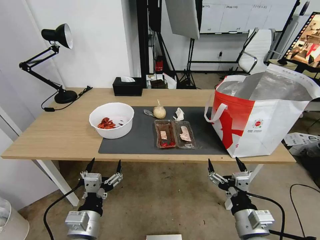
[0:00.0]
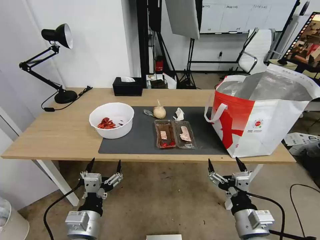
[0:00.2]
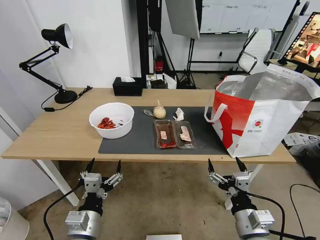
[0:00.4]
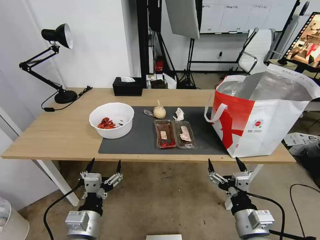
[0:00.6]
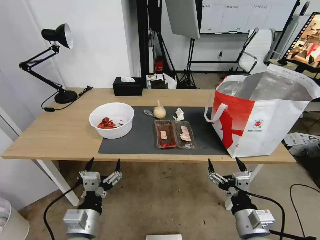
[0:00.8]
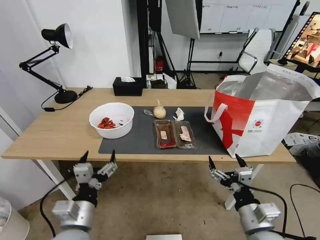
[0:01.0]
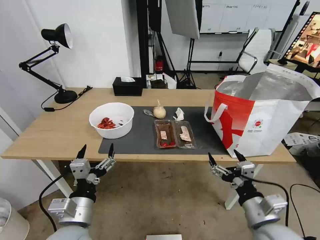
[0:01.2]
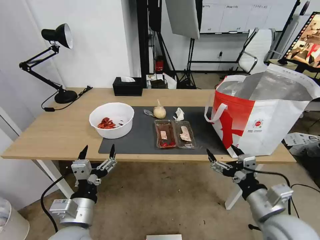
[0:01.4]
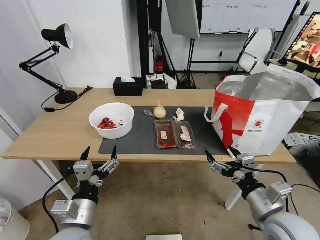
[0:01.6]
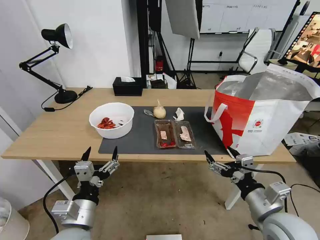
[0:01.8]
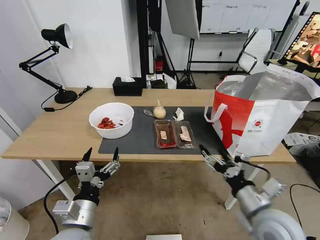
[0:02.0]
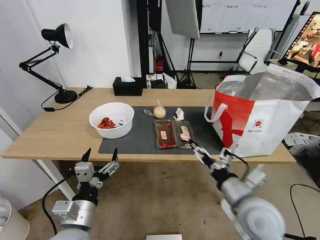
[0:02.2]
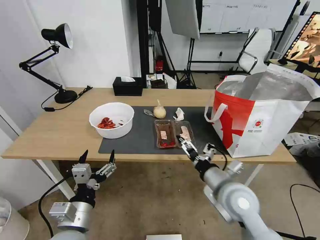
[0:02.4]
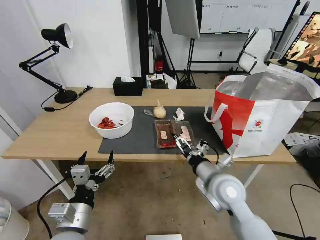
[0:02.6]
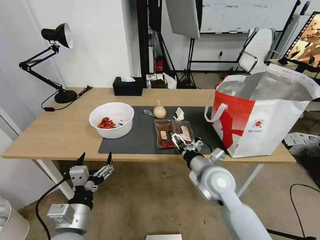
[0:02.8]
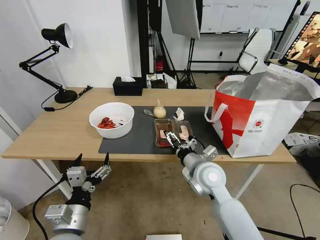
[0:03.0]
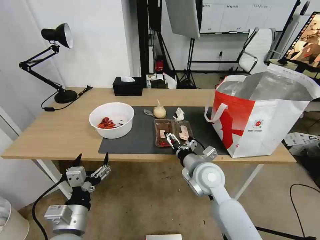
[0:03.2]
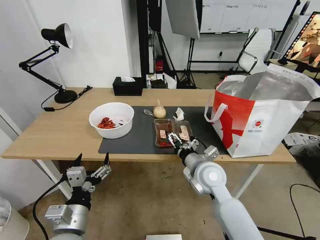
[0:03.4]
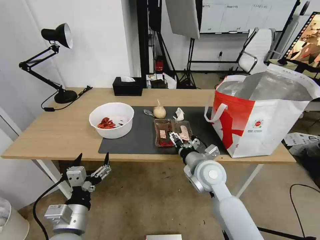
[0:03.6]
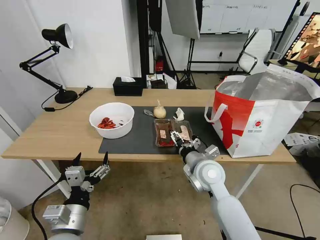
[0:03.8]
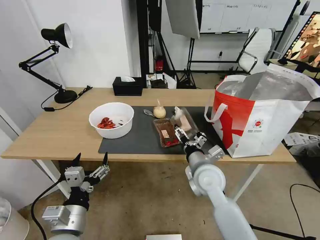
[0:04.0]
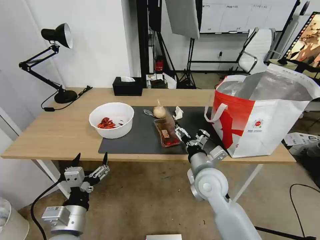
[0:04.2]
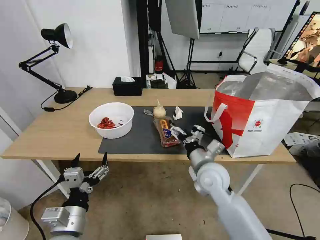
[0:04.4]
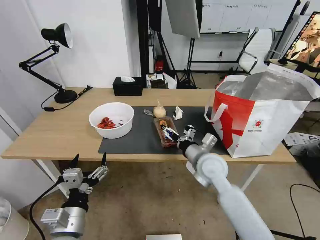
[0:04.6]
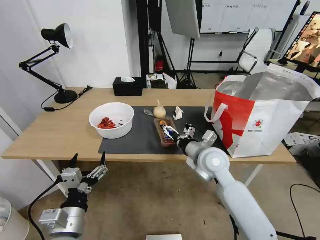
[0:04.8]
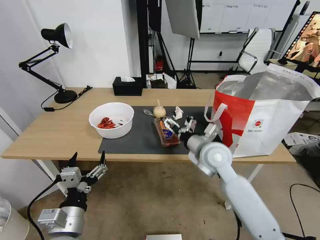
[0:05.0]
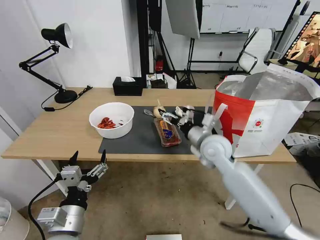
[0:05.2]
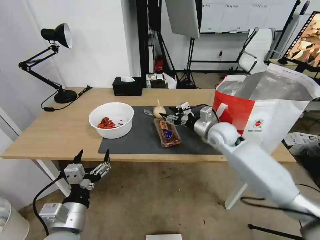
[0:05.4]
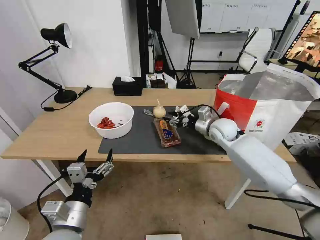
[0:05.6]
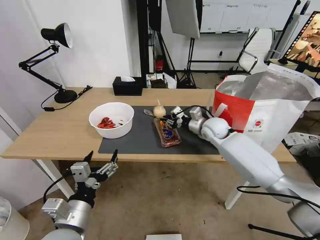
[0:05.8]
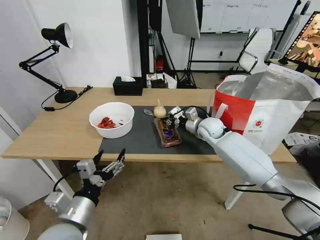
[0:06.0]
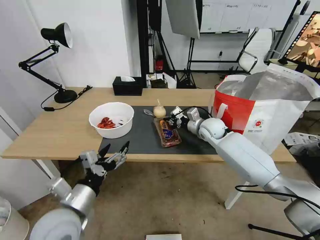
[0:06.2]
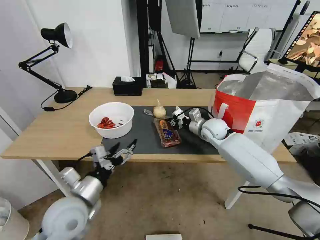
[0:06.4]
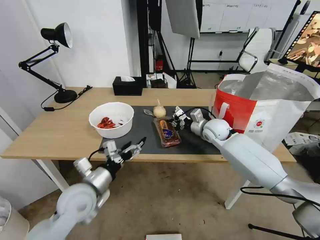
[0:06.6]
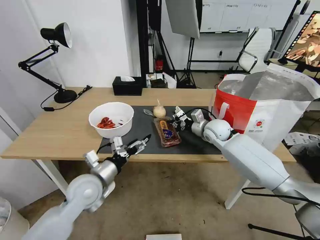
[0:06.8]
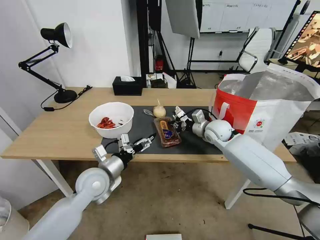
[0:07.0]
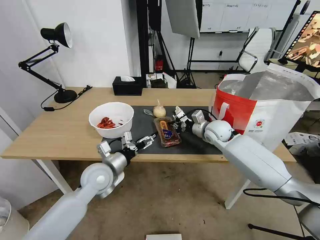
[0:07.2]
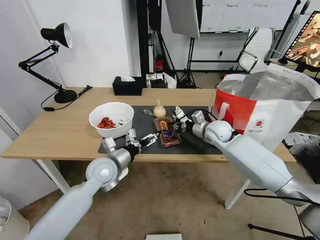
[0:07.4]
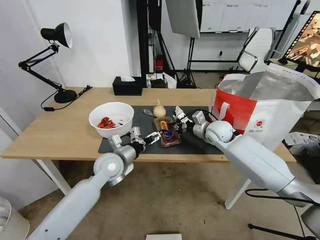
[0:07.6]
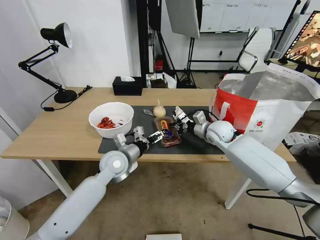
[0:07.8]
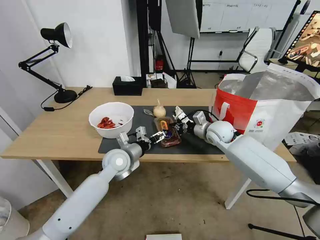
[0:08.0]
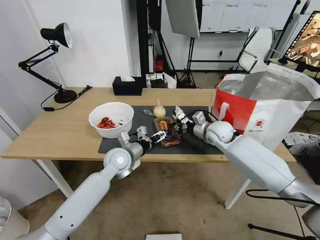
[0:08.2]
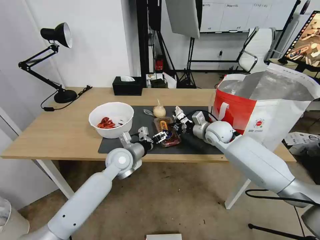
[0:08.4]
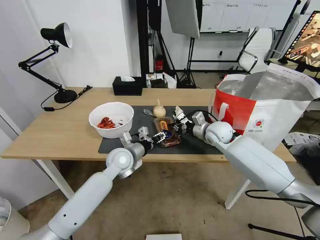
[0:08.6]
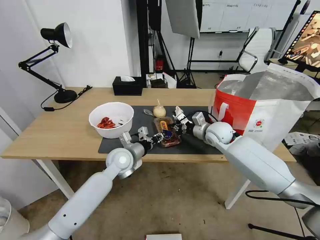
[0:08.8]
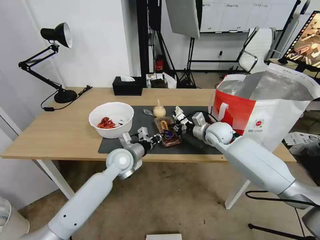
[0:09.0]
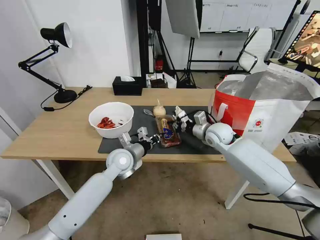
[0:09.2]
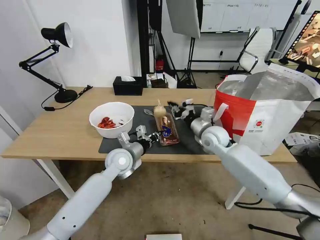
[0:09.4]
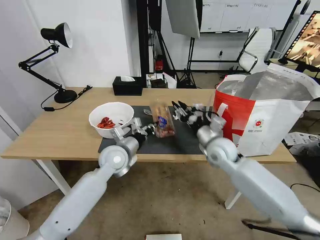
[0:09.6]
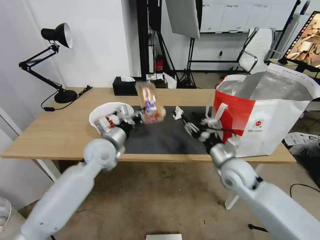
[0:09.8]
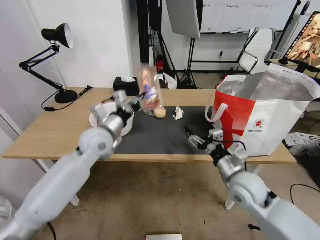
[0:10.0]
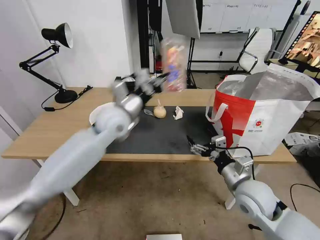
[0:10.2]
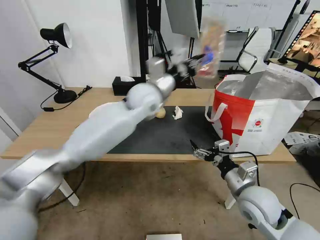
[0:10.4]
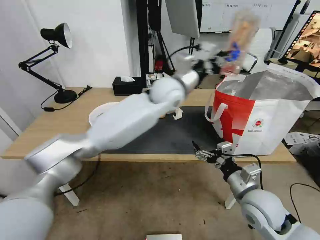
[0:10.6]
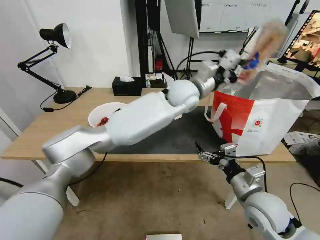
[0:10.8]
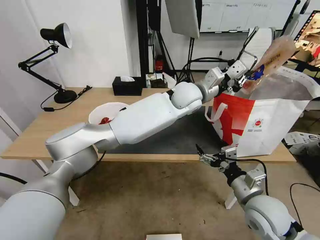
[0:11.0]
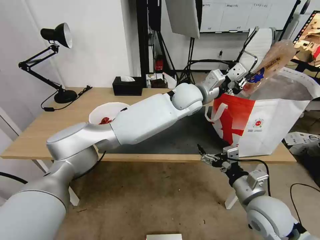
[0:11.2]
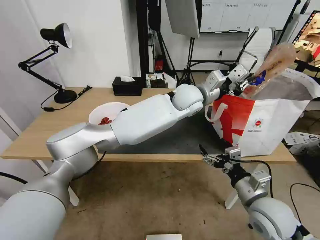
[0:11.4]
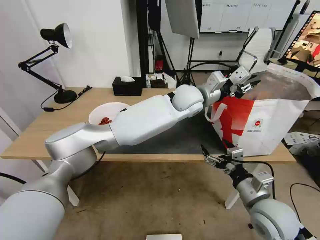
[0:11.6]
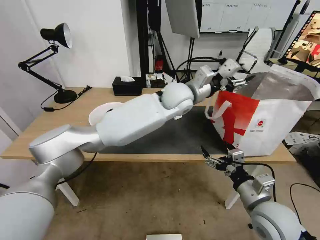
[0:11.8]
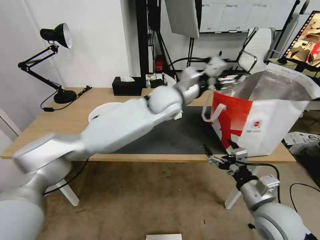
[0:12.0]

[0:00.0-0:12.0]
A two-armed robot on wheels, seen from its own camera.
Task of the whole recording: Pick up the trash from the table and place it into the takeout bag.
0:01.6 to 0:03.0: The right gripper shifts some 20 cm forward and to the left.
0:04.4 to 0:06.0: The right gripper is displaced forward by about 20 cm, and closes its fingers.
0:06.0 to 0:07.6: The left gripper shifts some 20 cm forward.
0:07.6 to 0:09.0: The left gripper closes up.
0:09.0 to 0:10.4: The right gripper travels backward by roughly 25 cm, and opens. The left gripper is displaced upward and to the right by about 25 cm.
0:10.4 to 0:12.0: The left gripper shifts approximately 5 cm to the right, and opens; the right gripper ends up roughly 5 cm from where it was.

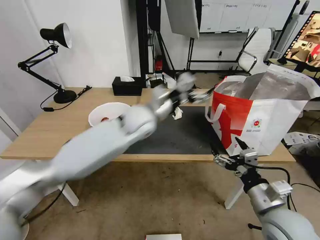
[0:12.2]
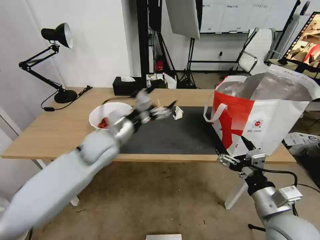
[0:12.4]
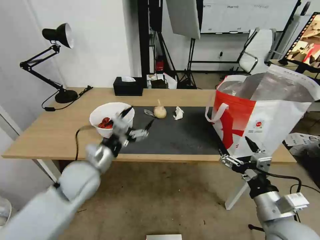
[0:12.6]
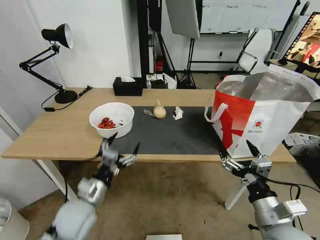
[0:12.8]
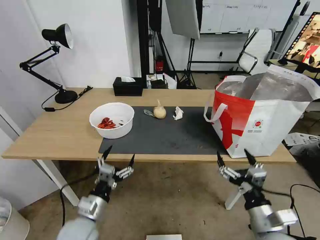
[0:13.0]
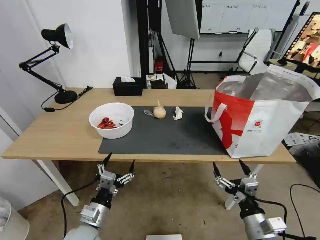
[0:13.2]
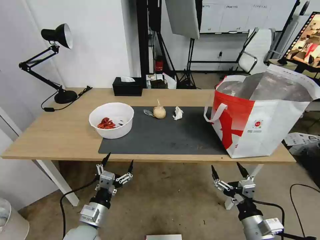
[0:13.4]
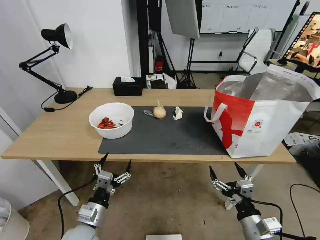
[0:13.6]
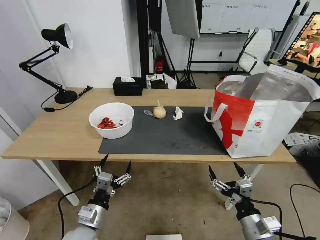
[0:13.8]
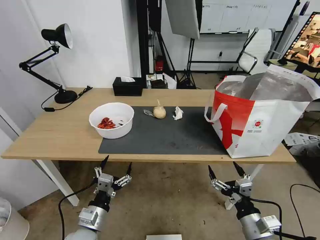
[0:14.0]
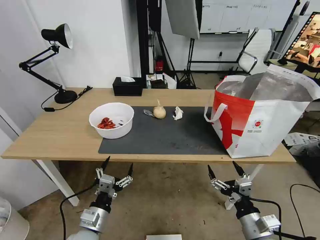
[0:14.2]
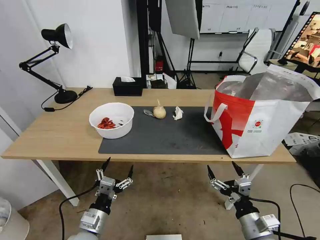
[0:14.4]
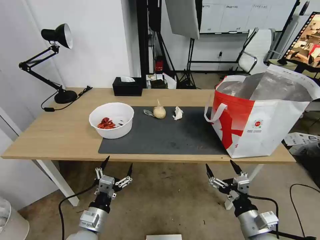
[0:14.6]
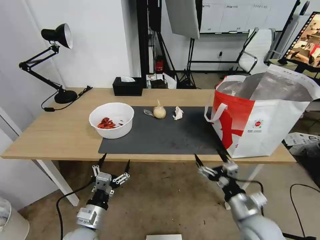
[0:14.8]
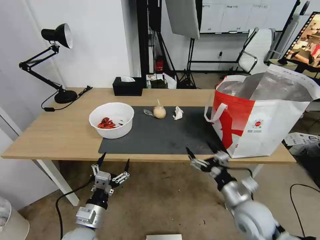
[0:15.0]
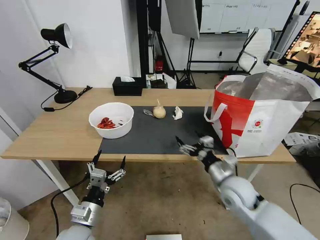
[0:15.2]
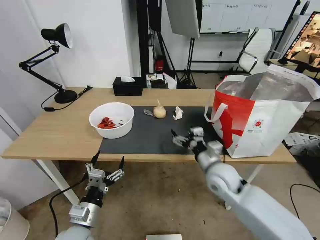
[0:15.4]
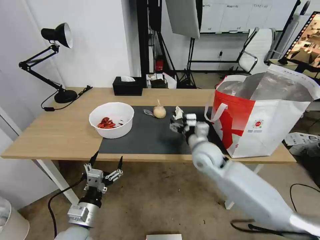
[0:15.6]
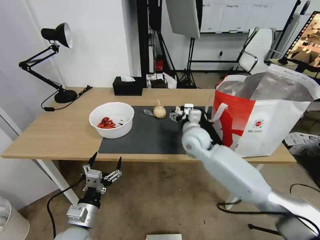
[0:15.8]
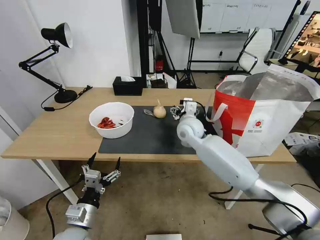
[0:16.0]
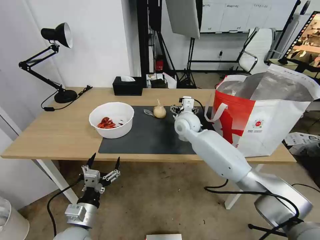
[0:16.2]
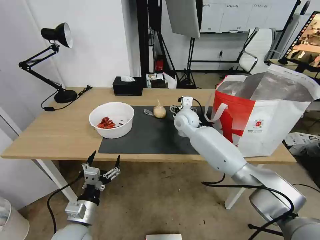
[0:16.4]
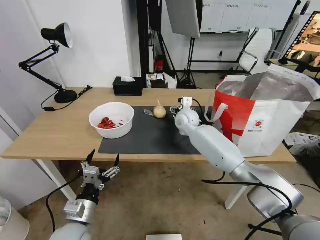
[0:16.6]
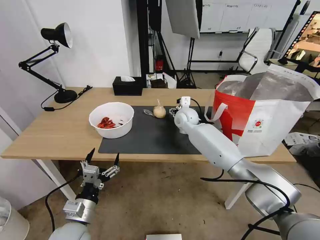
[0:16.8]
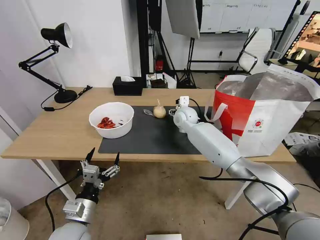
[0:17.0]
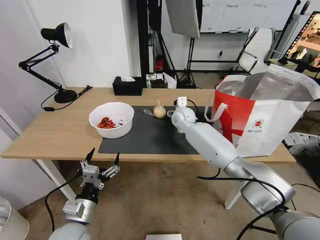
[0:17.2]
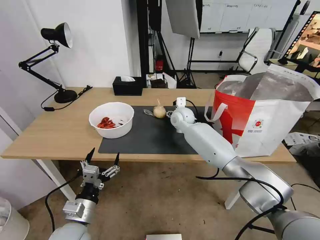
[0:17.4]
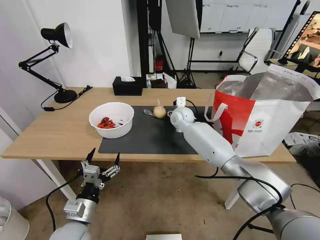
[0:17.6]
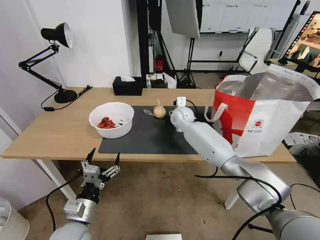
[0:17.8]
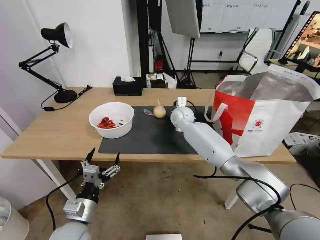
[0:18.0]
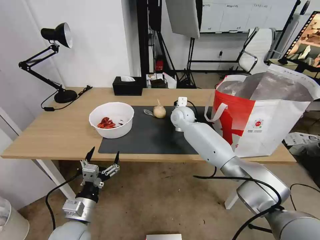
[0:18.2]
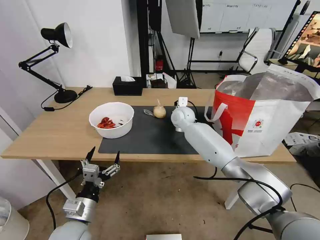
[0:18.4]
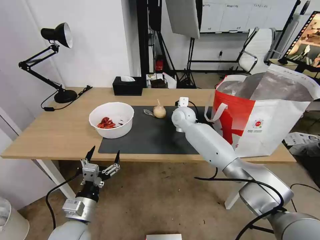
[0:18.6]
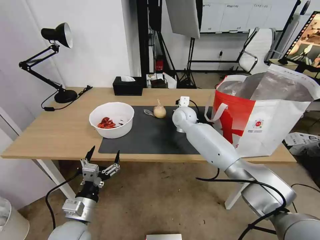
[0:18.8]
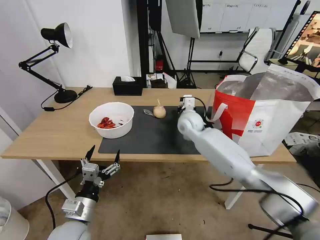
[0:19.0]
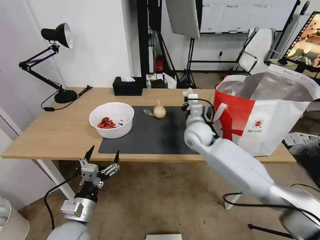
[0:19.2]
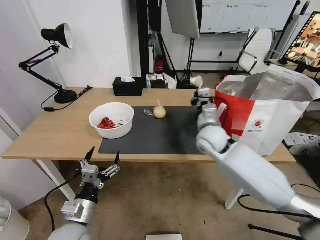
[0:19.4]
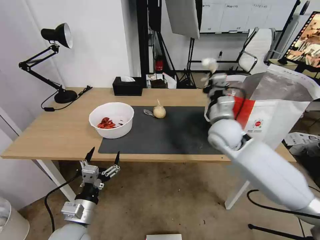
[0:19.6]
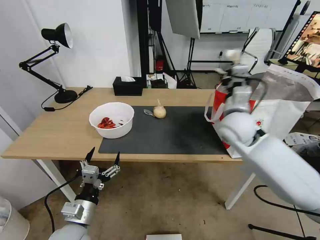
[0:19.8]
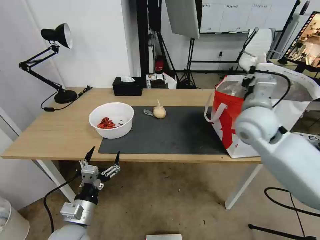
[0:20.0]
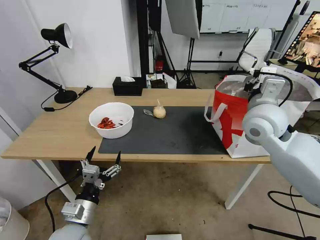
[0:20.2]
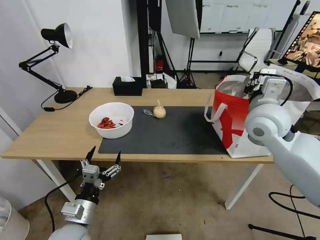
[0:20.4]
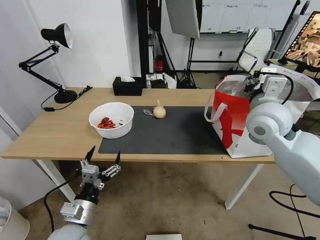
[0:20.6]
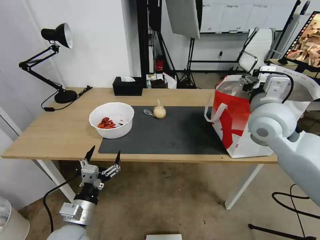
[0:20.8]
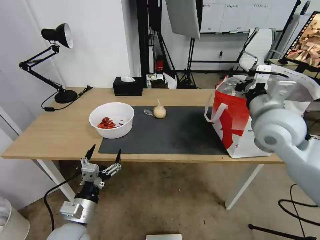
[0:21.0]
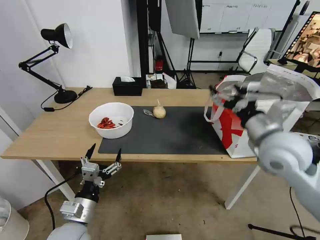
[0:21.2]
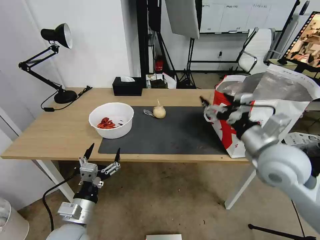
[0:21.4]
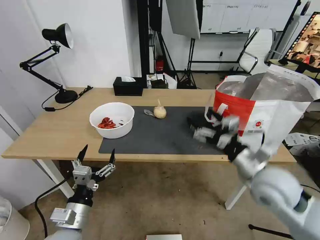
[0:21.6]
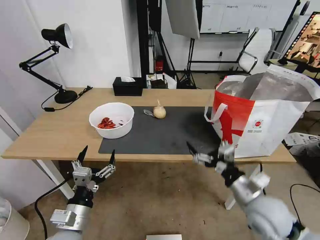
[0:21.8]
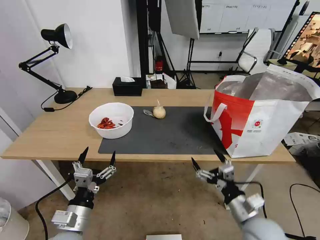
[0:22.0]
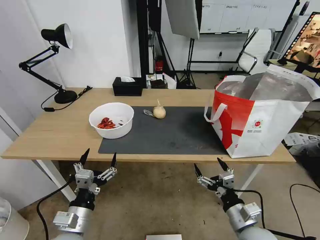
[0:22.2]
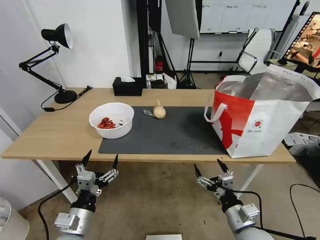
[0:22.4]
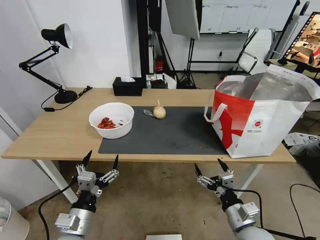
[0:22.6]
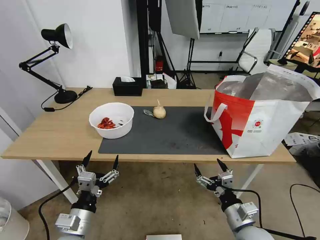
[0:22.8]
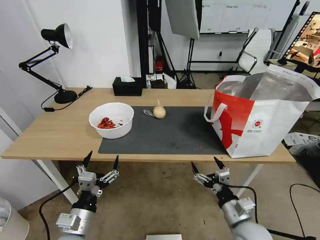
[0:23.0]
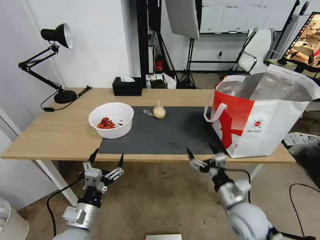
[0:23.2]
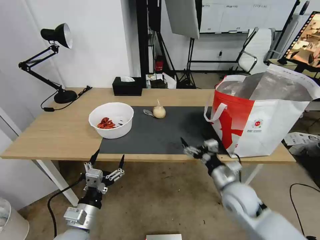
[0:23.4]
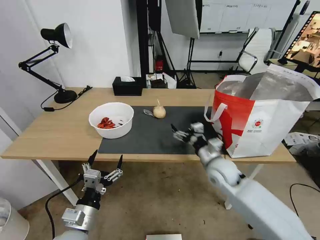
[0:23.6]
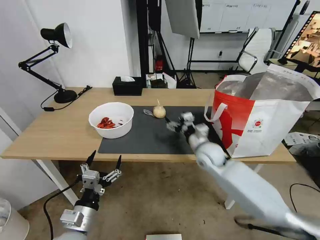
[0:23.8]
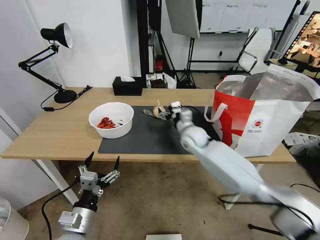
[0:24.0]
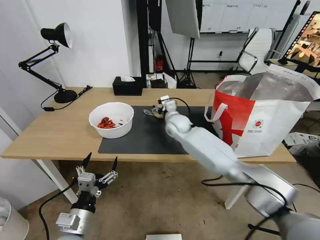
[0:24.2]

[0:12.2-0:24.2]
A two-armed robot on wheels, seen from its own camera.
Task of the whole recording: Pick up the trash from the table and place it into the takeout bag.
0:12.2 to 0:13.8: The right gripper goes about 10 cm downward, while the left gripper shifts about 35 cm backward, downward and to the left.
0:13.8 to 0:15.2: The right gripper goes approximately 15 cm forward.
0:15.2 to 0:16.6: The right gripper shifts some 30 cm forward and to the left.
0:16.6 to 0:18.2: The right gripper closes its fingers.
0:18.2 to 0:19.8: The right gripper shifts some 25 cm backward, to the right and upward.
0:19.8 to 0:21.2: The right gripper shifts roughly 10 cm backward and to the right, and opens up.
0:21.2 to 0:22.6: The right gripper goes approximately 30 cm downward and backward.
0:22.6 to 0:24.2: The right gripper is displaced forward and to the left by approximately 40 cm.
